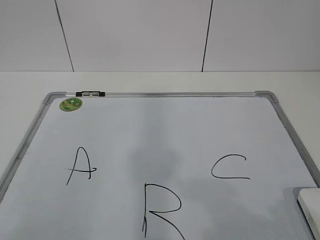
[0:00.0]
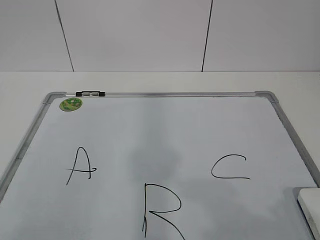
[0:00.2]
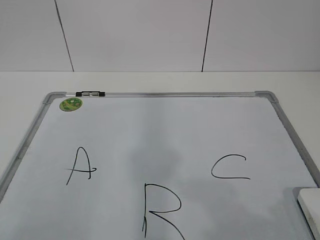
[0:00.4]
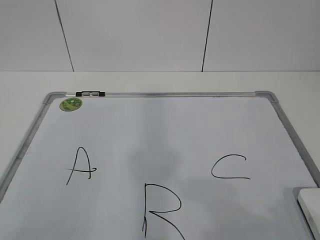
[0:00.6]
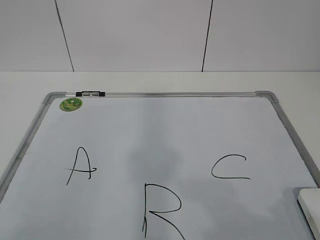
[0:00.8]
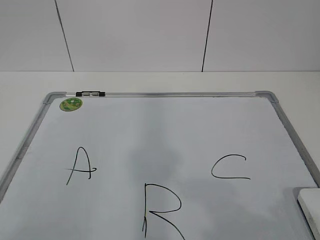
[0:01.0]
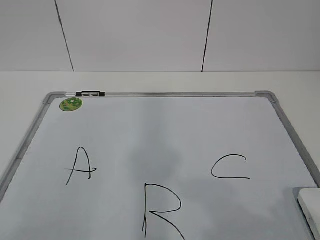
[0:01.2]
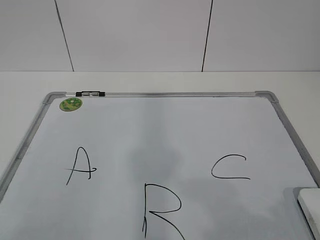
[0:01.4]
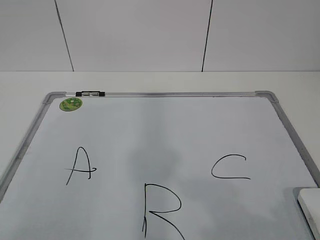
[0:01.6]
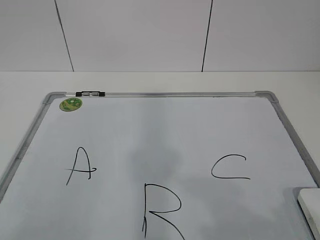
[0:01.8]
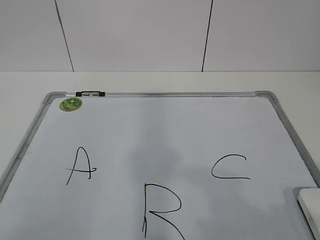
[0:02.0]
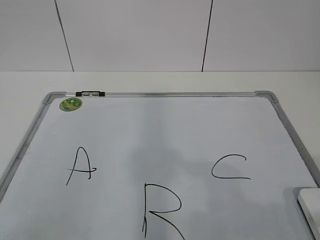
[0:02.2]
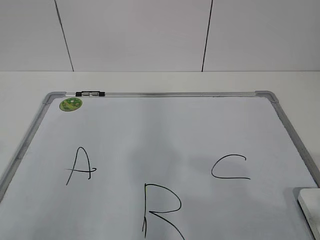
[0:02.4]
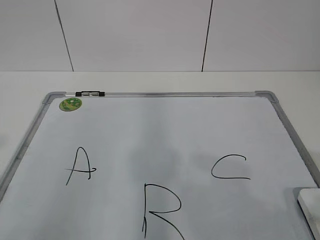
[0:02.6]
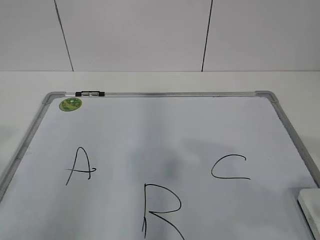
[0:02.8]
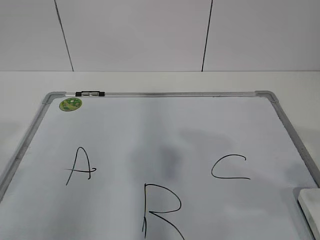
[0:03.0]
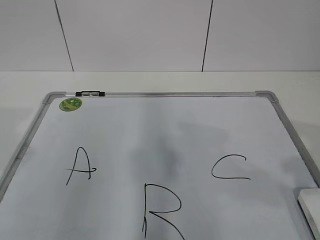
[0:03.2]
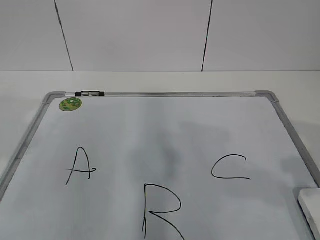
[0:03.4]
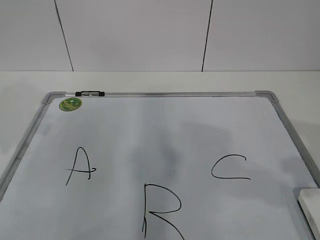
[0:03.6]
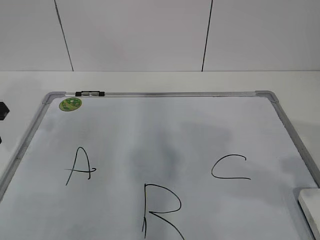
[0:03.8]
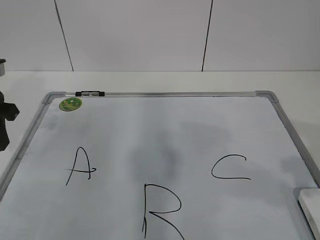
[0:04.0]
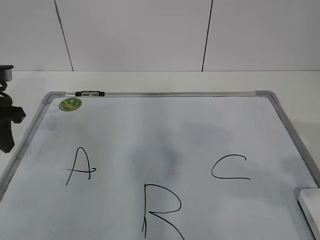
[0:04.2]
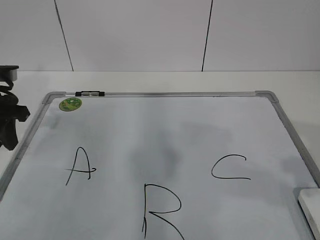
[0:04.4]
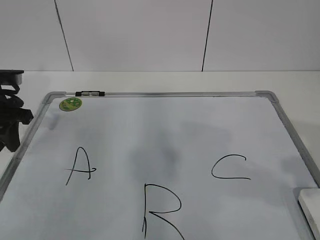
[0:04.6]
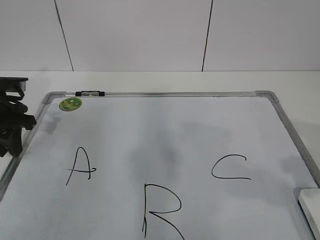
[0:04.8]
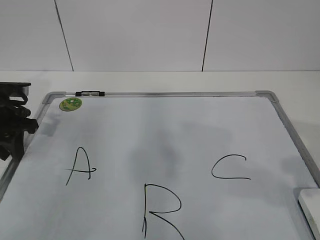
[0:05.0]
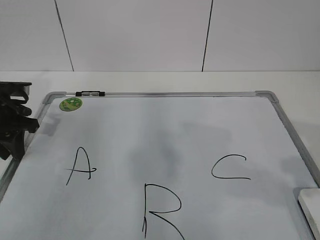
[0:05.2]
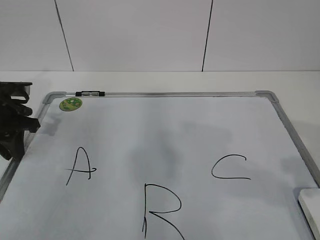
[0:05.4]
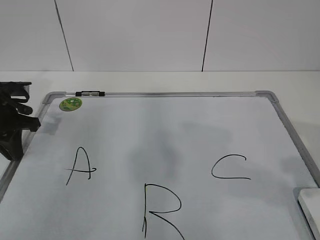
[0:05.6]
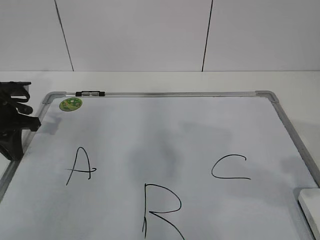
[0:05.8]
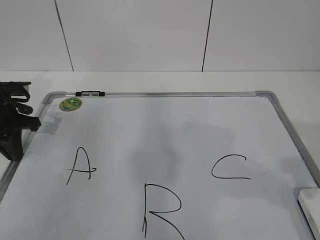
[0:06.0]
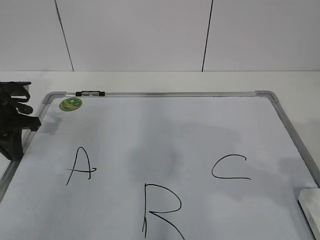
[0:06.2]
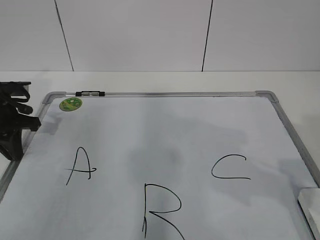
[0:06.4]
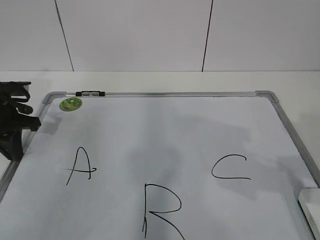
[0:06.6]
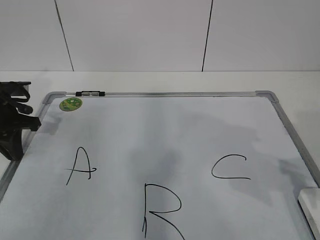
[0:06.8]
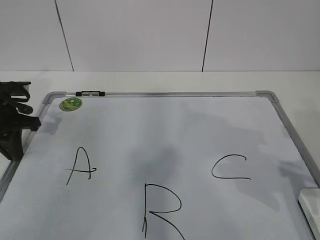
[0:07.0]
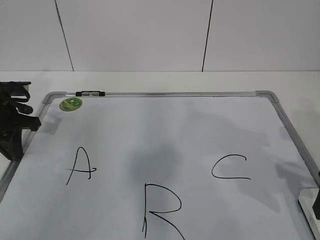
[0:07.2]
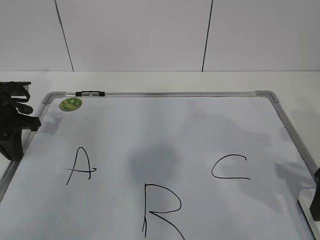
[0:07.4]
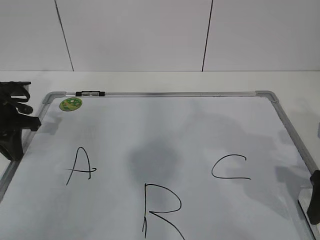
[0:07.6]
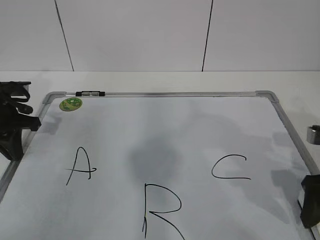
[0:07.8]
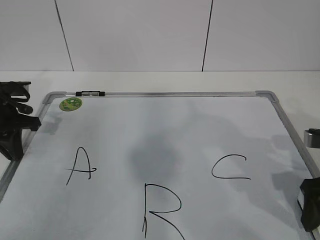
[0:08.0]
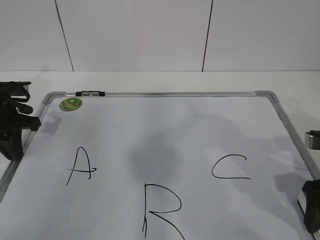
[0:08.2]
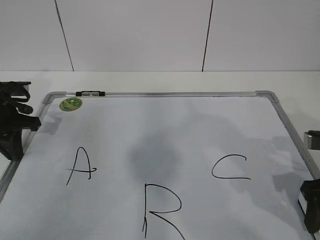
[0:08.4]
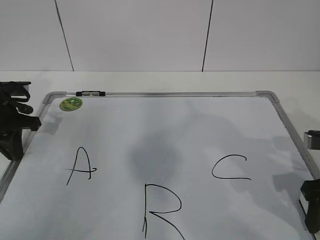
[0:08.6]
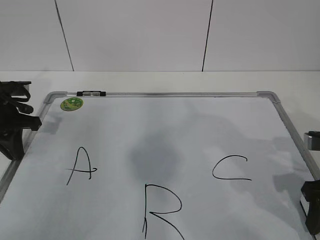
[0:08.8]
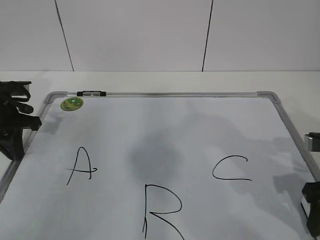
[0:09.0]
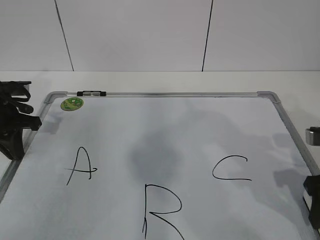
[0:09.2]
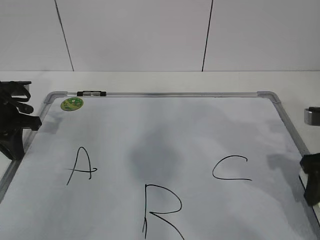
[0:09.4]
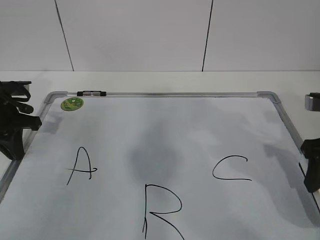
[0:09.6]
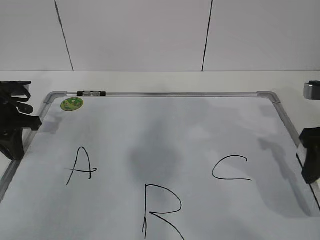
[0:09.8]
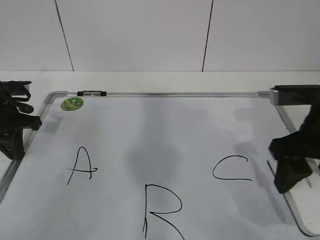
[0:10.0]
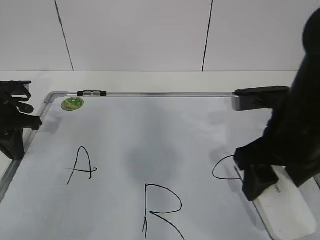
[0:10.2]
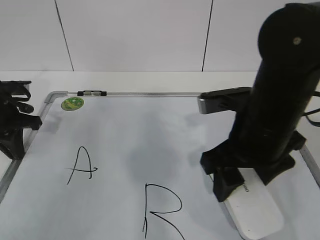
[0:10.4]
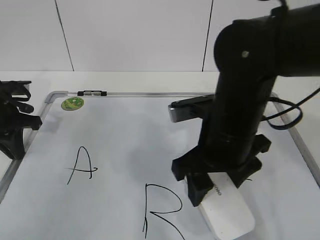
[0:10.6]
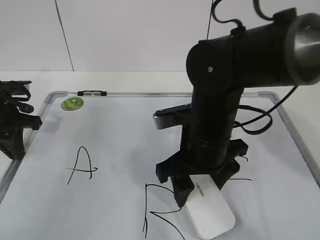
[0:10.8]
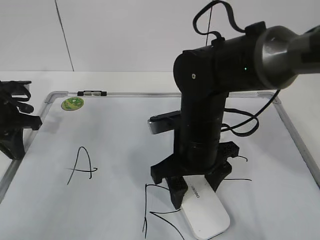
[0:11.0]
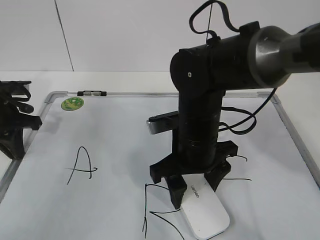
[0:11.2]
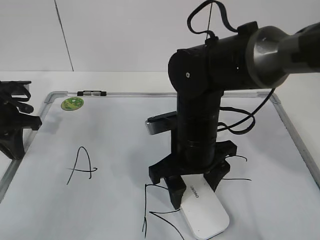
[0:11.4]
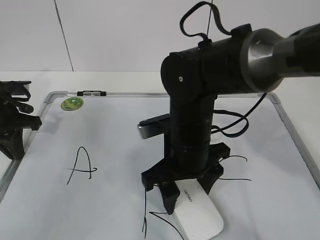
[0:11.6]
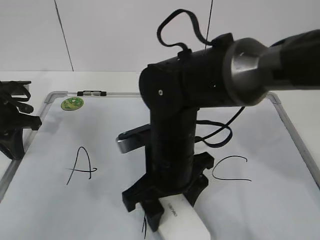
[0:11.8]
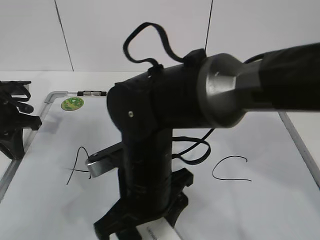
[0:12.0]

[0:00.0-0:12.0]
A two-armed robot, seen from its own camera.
Task of the whole recording: pick up the eraser on the blackboard and erase the letter "B".
Step, 0:00.0 to 0:04.4: Hold the drawing board steady with your left hand.
Step, 0:04.8 to 0:07.4: Grab the eraser with your right hand.
0:03.0 to 0:04.4: The left gripper heads forward, covering about 25 cm.
0:04.4 to 0:06.0: The left gripper moves some 5 cm, and closes.
0:06.0 to 0:07.6: The right gripper shifts roughly 15 cm downward and forward, and opens its fingers.
0:07.6 to 0:09.0: The right gripper closes.
0:09.0 to 0:10.4: The right gripper is displaced to the left and upward by about 15 cm.
0:10.4 to 0:12.0: The right gripper moves to the left and downward, some 15 cm.

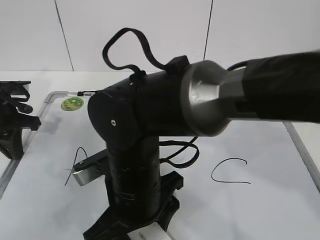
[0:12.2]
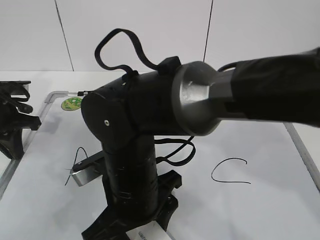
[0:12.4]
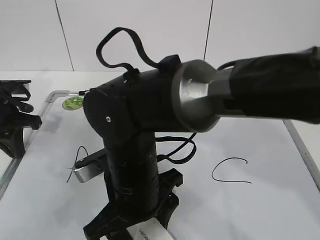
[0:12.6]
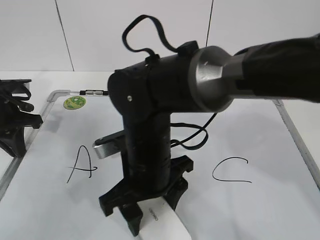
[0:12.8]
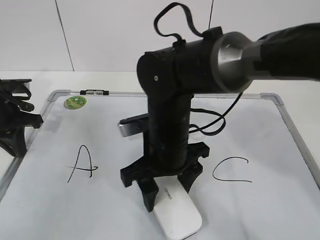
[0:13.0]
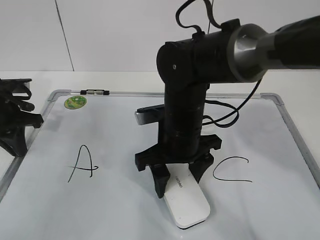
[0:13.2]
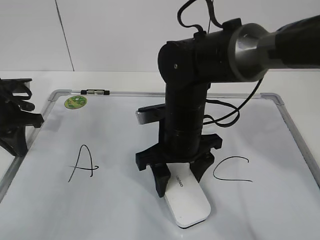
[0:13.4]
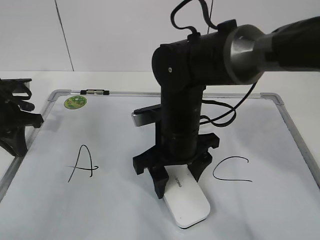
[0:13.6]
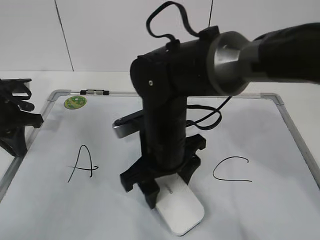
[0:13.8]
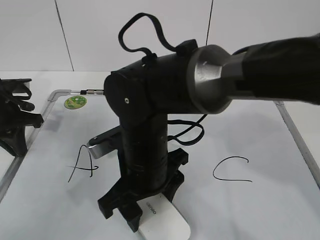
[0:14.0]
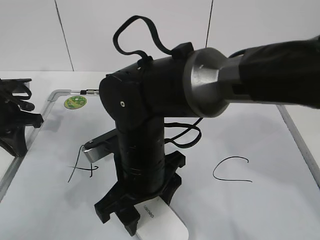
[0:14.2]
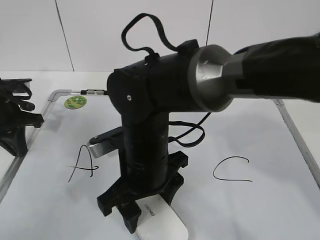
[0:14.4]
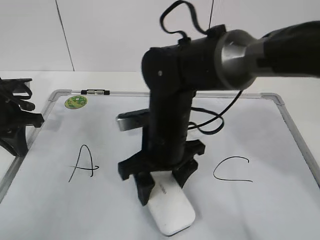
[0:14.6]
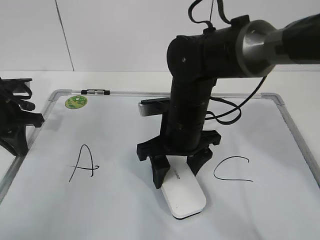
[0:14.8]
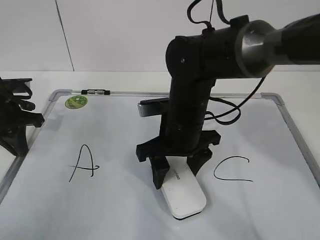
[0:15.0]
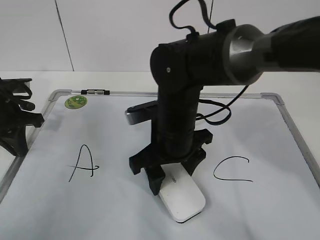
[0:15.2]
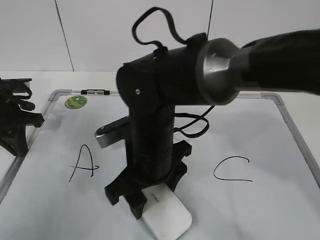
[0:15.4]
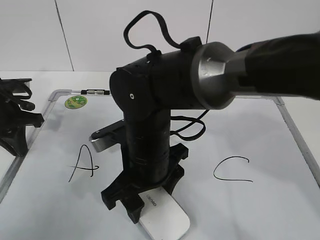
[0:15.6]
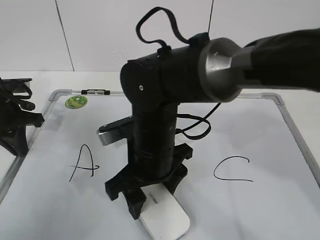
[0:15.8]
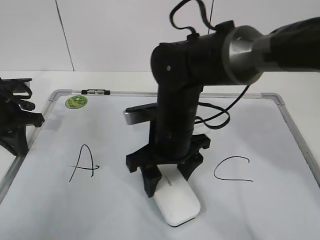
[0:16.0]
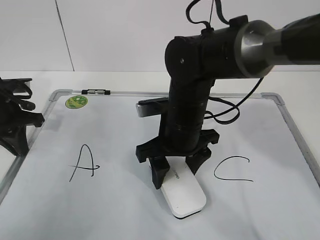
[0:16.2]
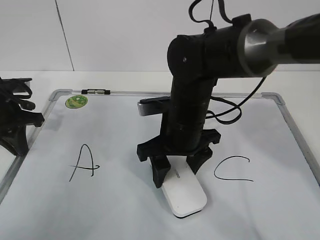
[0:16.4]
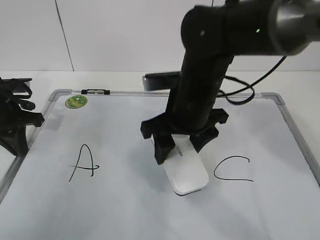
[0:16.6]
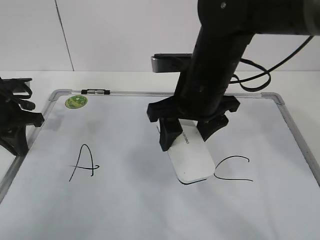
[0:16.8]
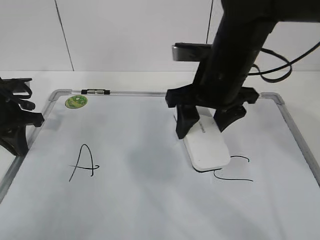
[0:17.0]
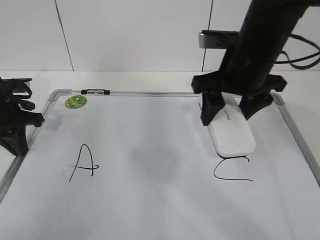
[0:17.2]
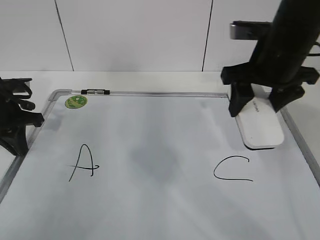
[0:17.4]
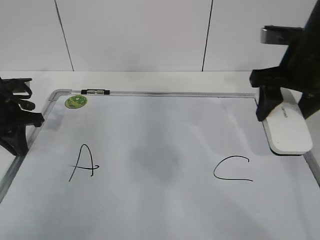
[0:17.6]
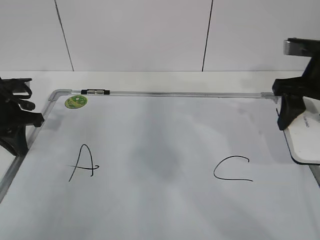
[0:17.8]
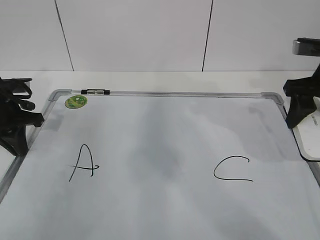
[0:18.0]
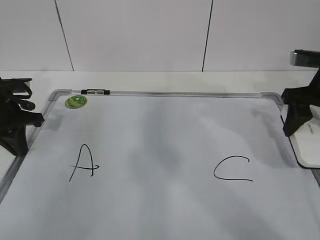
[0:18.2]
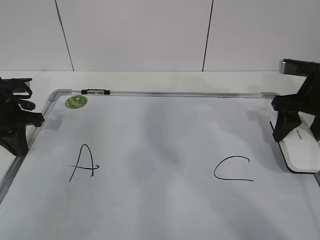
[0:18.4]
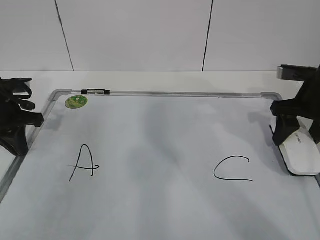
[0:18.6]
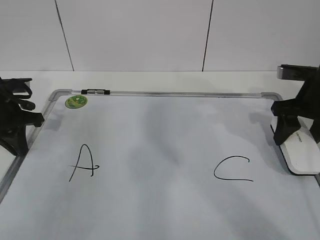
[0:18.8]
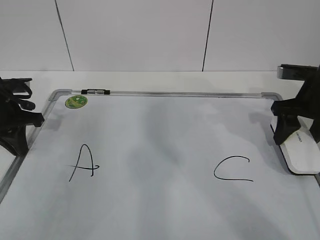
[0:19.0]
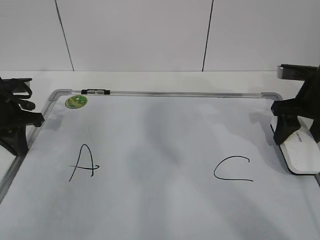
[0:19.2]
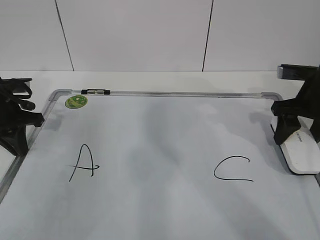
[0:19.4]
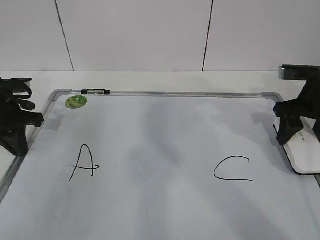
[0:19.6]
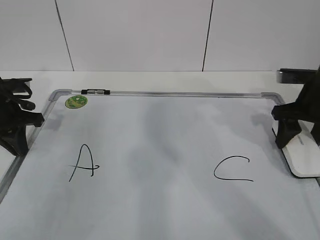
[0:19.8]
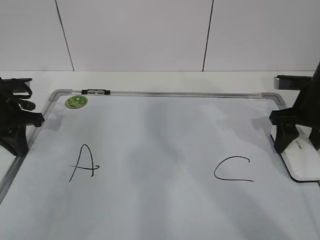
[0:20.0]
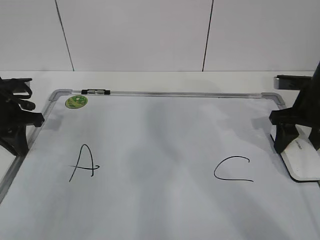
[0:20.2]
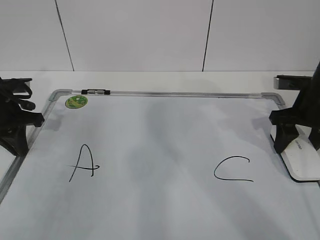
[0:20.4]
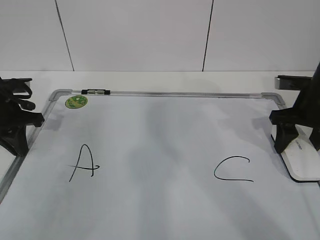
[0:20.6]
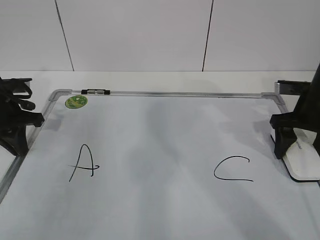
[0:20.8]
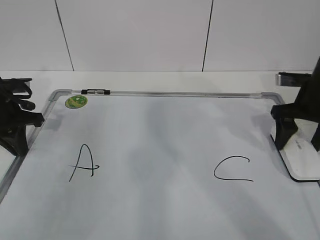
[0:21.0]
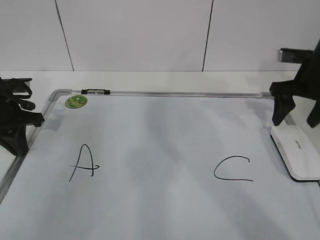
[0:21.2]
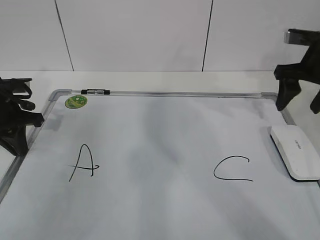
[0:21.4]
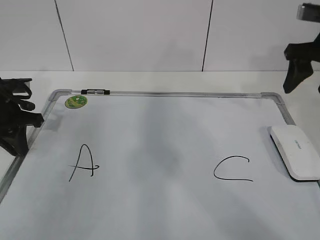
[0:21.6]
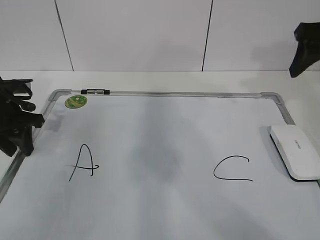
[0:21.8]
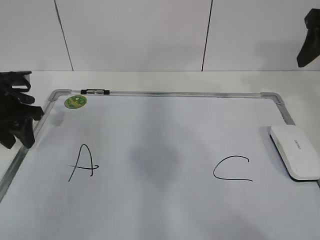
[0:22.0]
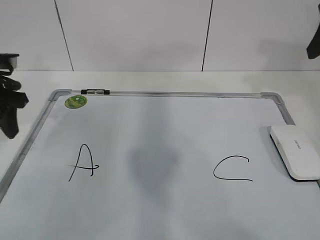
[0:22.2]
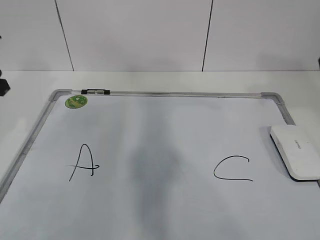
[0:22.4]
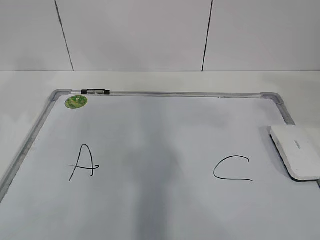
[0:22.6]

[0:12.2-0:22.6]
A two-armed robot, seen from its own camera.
Task of the whole recording: pick up the eraser on the blackboard and erase the letter "B".
Step, 0:13.8 to 0:17.0: Put down the eraser with your right hand.
0:12.2 to 0:13.6: The right gripper travels forward and to the right by approximately 10 cm.
0:13.6 to 0:15.2: The right gripper travels backward and back again, approximately 5 cm each way.
0:16.6 to 0:18.2: The right gripper is displaced to the right by roughly 25 cm.
0:18.2 to 0:19.6: There are only small adjustments of the grippers.
0:19.6 to 0:21.2: The right gripper opens up.
0:21.2 to 0:22.6: The left gripper goes approximately 15 cm upward, and opens its fingers. The right gripper moves backward and upward, approximately 25 cm.
